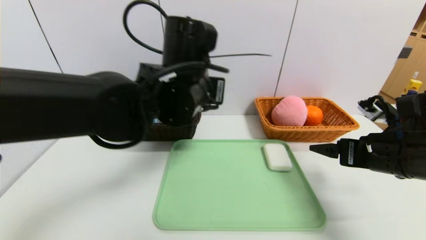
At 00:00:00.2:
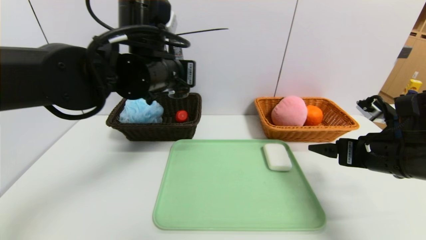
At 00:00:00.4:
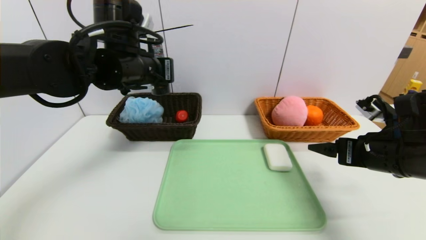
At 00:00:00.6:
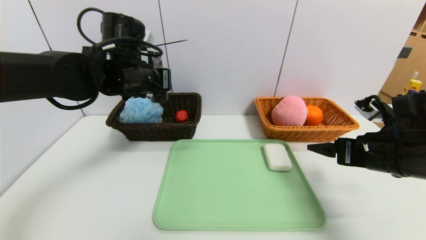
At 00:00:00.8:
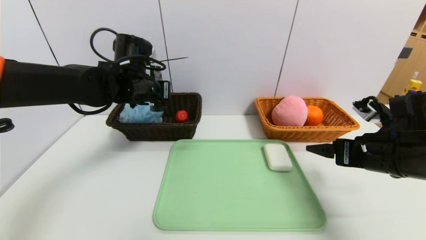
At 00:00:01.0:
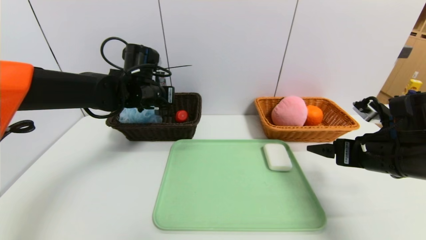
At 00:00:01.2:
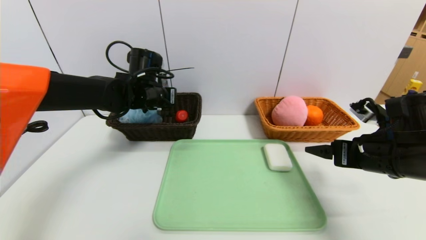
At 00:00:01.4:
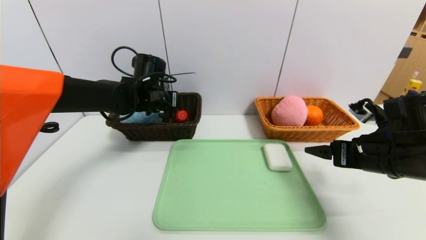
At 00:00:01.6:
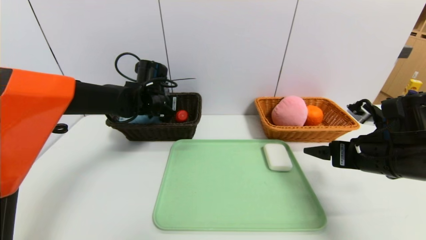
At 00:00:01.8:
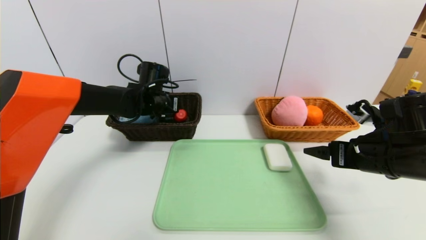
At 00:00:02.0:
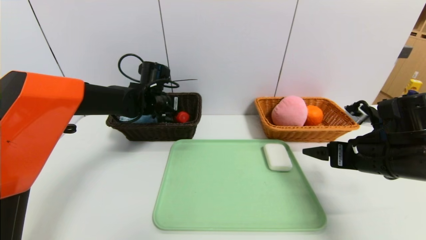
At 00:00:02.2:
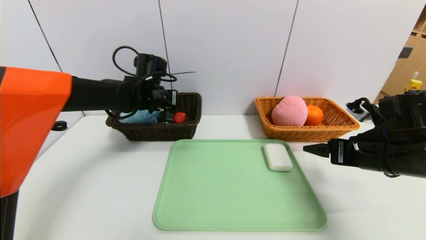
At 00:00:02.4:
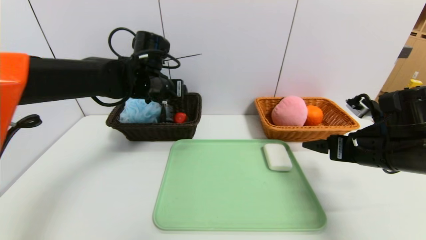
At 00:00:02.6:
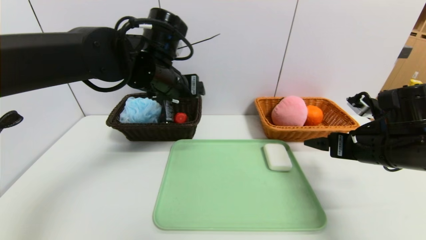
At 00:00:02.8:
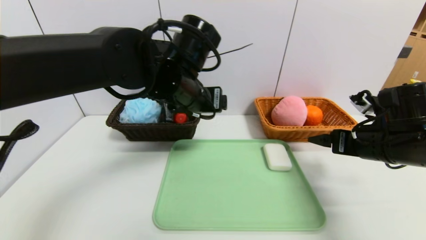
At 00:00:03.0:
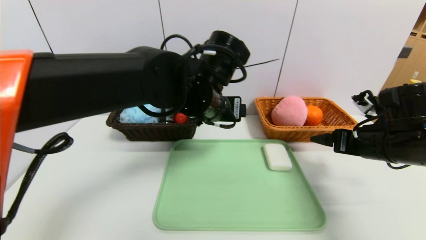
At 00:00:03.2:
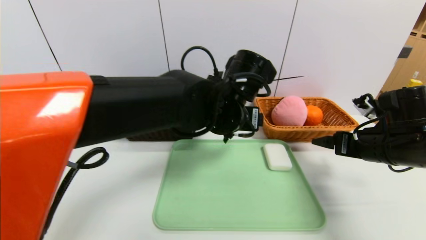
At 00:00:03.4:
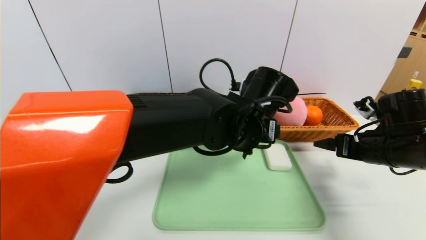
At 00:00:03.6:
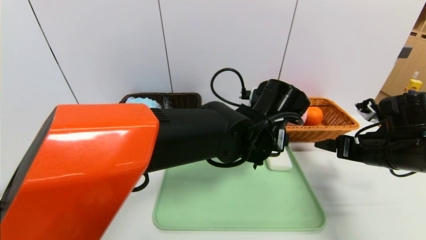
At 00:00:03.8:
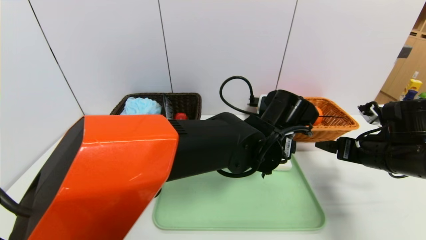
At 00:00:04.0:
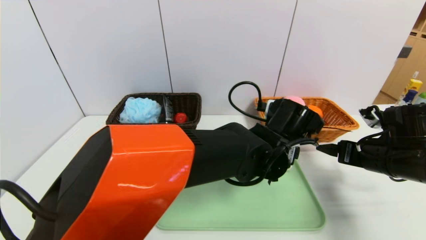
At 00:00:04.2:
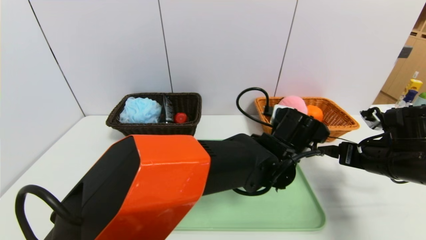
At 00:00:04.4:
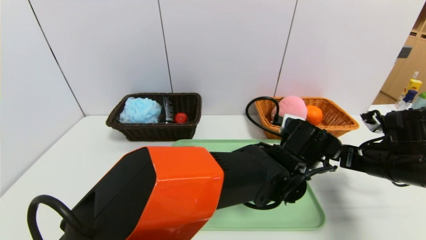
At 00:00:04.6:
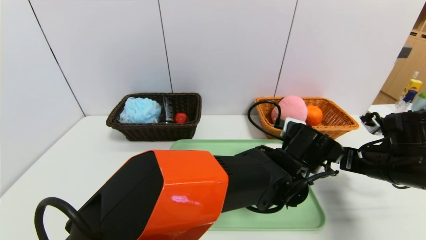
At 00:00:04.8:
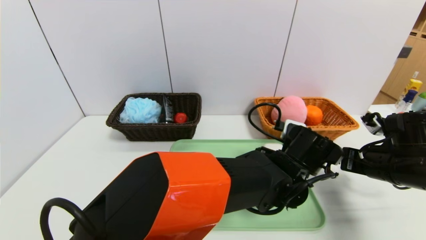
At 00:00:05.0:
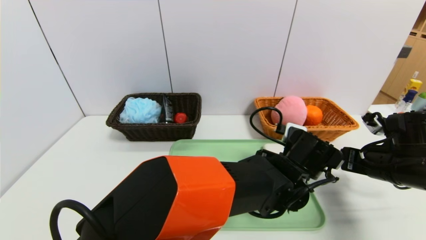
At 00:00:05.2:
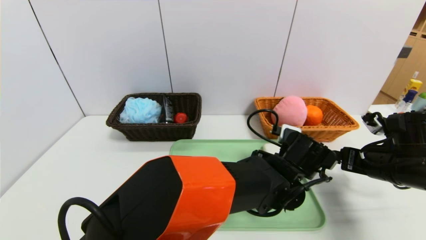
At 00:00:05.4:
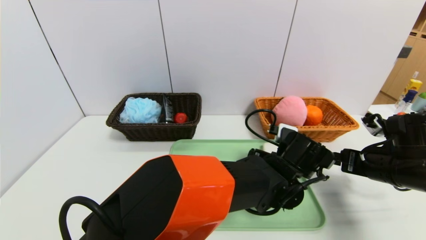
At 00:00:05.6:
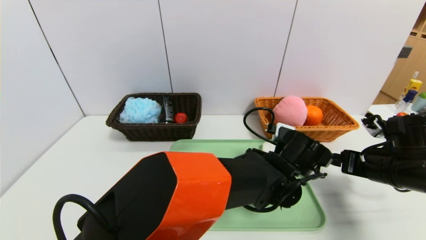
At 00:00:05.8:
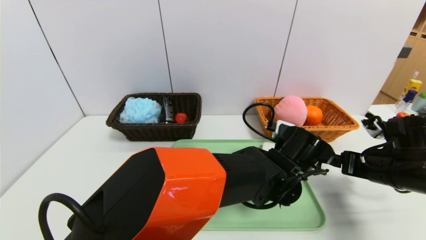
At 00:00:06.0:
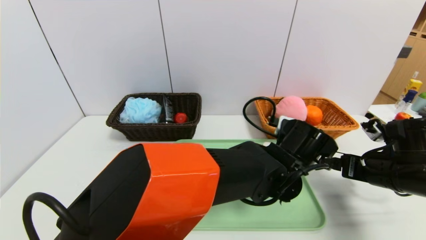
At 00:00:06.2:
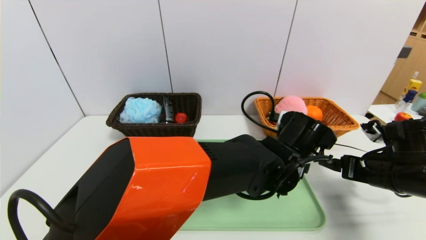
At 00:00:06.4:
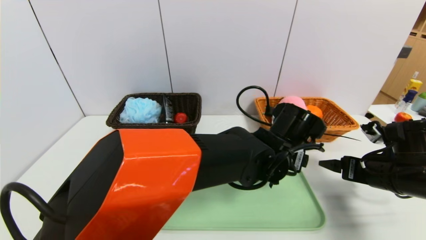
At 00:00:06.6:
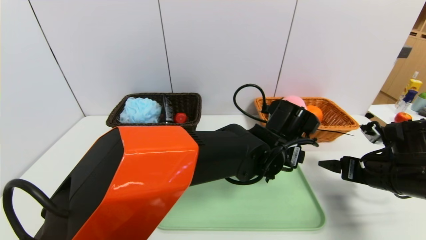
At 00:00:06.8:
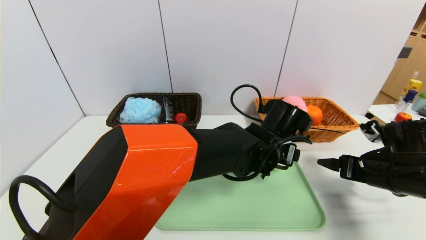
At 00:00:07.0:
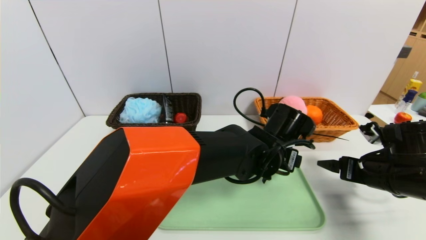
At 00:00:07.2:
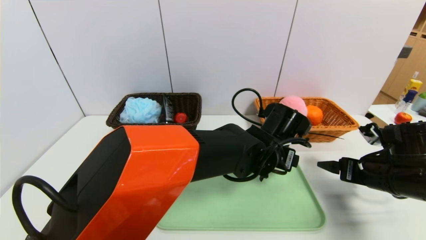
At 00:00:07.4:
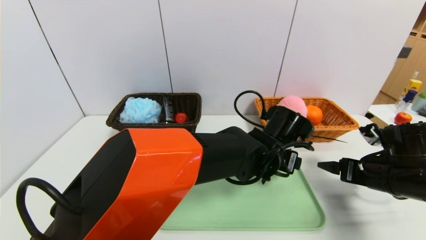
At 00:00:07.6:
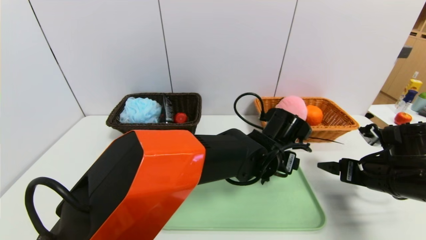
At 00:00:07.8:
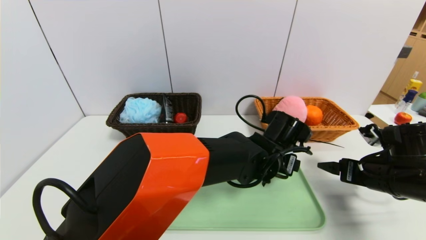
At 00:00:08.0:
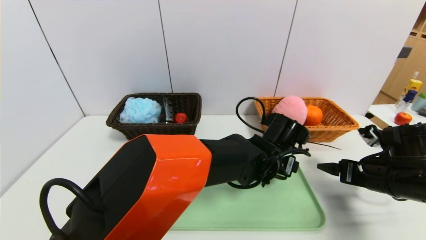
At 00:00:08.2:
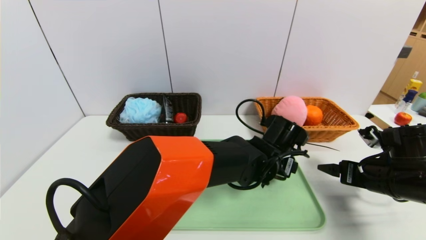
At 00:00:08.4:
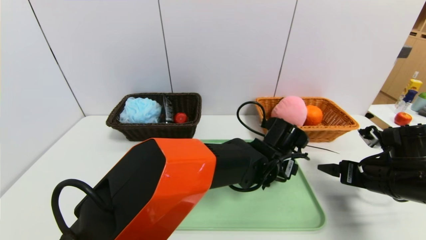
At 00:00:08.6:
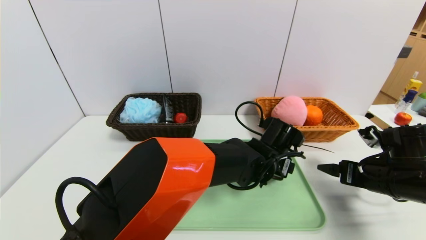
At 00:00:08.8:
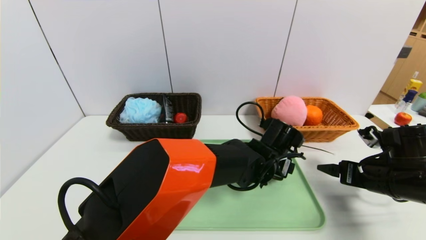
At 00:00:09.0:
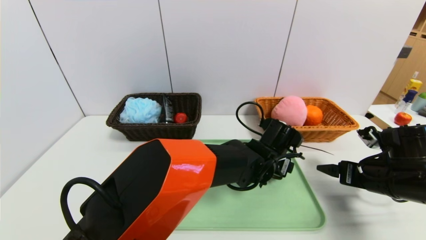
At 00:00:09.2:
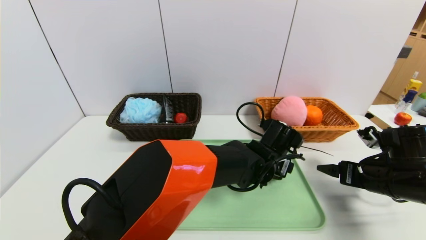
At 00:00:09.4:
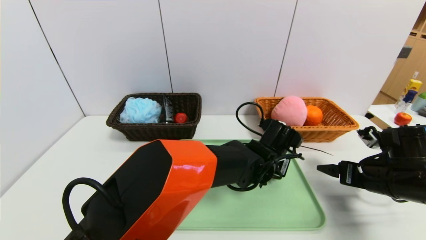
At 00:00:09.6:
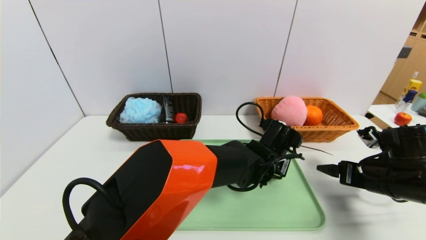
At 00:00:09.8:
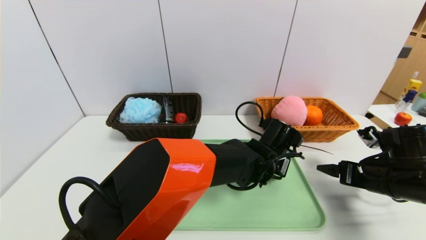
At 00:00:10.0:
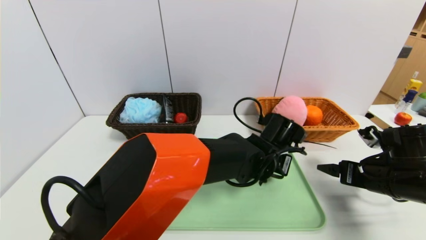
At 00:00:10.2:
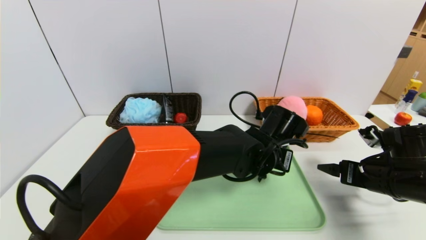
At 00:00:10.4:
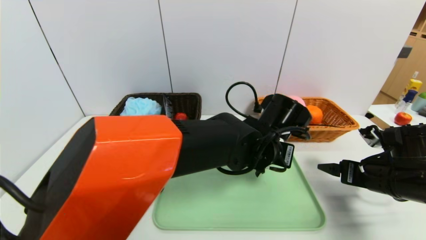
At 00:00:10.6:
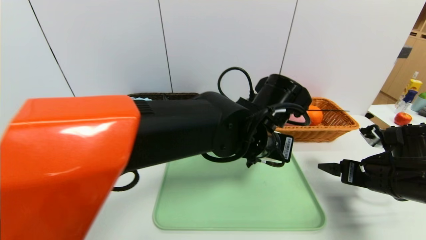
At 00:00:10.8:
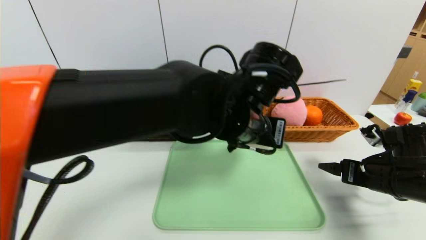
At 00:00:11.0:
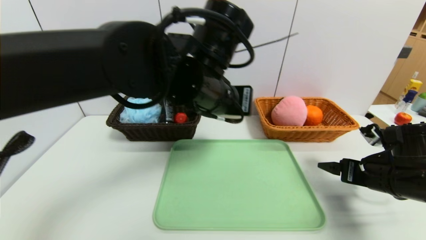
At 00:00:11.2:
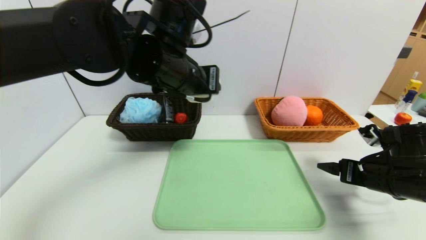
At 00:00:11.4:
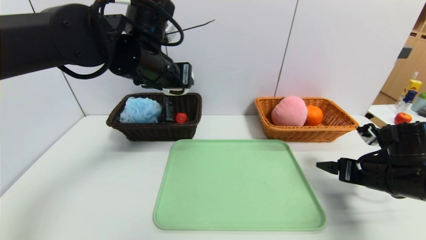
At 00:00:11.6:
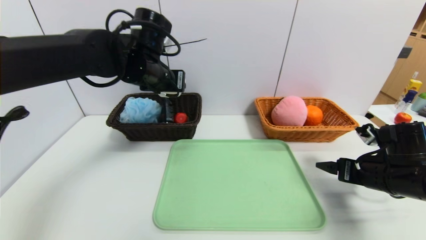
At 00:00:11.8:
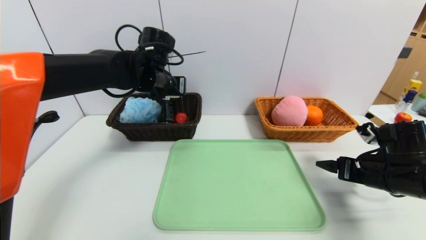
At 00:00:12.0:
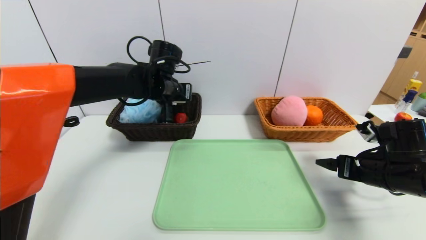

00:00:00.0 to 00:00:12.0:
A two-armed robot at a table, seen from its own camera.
Task of the whole recording: place the food in the right basket with the right gripper, and place the non food items in the left basket with the left gripper.
00:00:00.0 to 00:00:01.6: The left gripper travels forward, to the left and downward by about 20 cm.
00:00:01.6 to 00:00:03.0: The left gripper shifts approximately 20 cm to the right, backward and upward, and opens.
00:00:03.0 to 00:00:04.4: The left gripper shifts about 20 cm to the right and downward.
00:00:04.4 to 00:00:09.0: The grippers stay close to where they were, moving slightly.
00:00:09.0 to 00:00:10.4: The left gripper goes some 5 cm upward, and closes its fingers.
00:00:10.4 to 00:00:12.0: The left gripper heads to the left and forward, covering approximately 25 cm.

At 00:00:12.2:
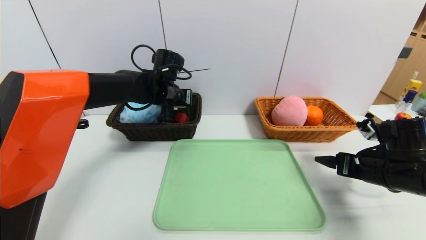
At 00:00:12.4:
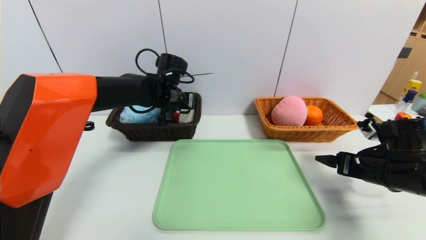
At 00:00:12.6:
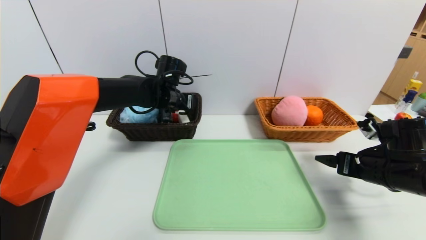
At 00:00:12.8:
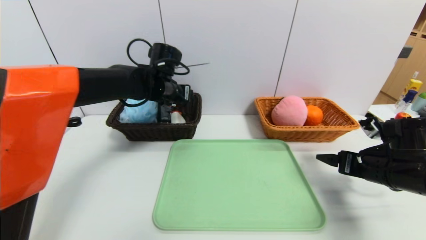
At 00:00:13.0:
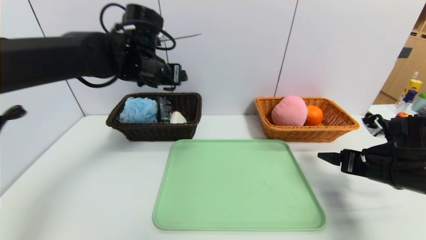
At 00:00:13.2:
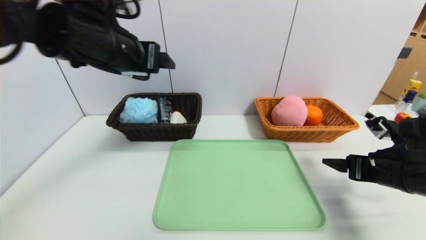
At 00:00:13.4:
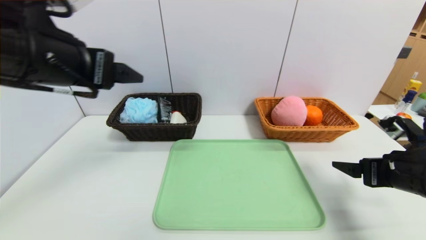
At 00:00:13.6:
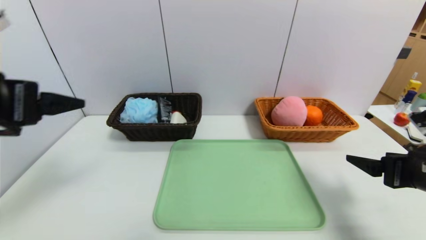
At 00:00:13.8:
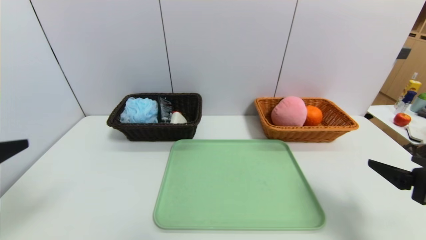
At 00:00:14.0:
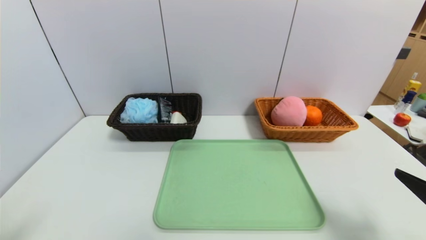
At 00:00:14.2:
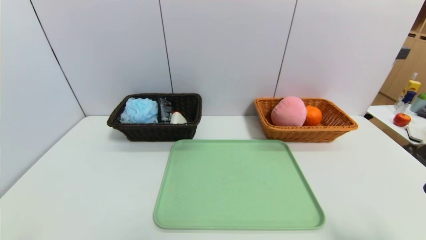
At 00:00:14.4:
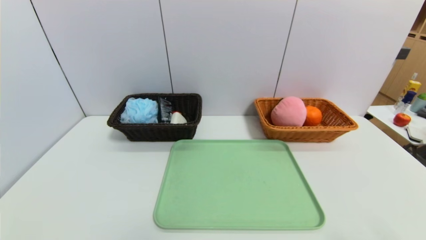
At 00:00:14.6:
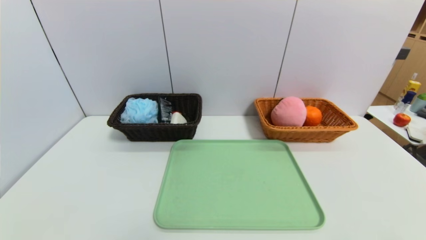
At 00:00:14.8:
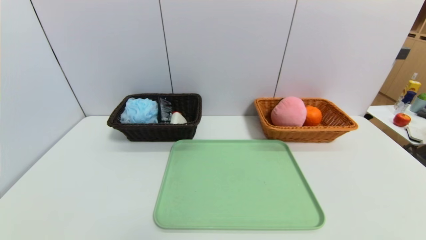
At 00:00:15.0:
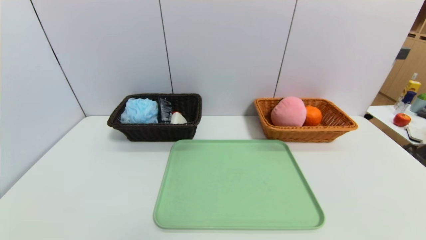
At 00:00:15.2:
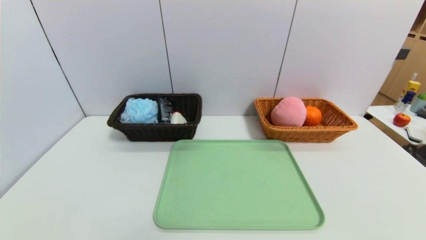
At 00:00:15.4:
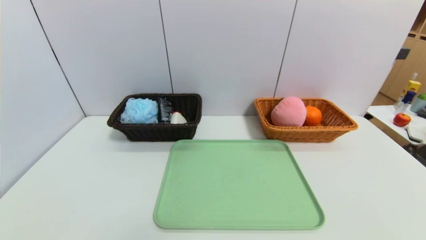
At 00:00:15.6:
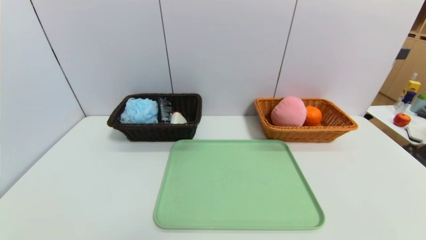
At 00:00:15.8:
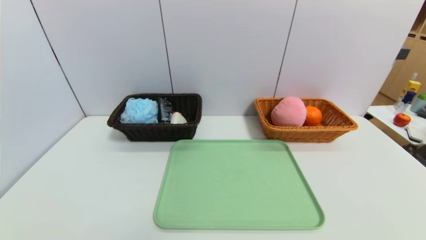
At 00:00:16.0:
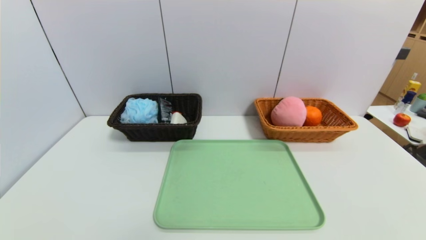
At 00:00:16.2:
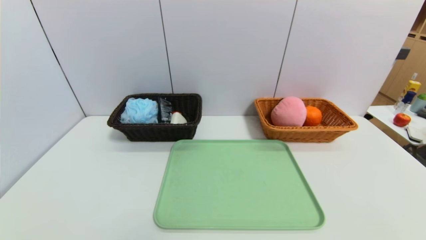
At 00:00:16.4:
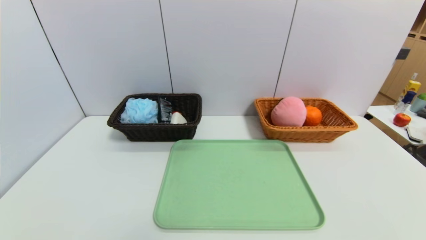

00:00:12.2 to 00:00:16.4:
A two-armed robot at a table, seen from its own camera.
Task of the whole recording: place the food in the right basket with the right gripper, and place the non food items in the left basket with the left gripper.
Step, 00:00:13.2 to 00:00:16.2: Grasp the soap and put it in the left basket.
00:00:12.2 to 00:00:13.6: The right gripper is displaced backward and upward by some 10 cm. The left gripper shifts roughly 30 cm backward and to the left, and opens its fingers.
00:00:13.6 to 00:00:15.0: The left gripper moves downward and backward, approximately 30 cm. The right gripper shifts approximately 20 cm backward.
